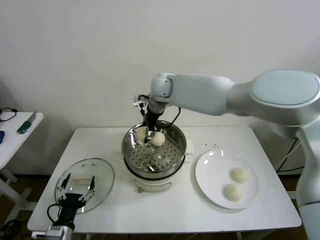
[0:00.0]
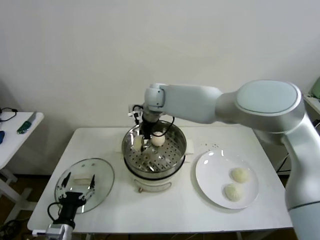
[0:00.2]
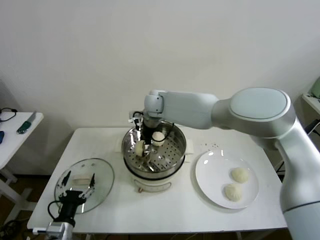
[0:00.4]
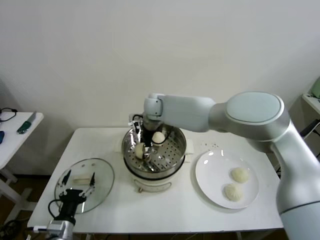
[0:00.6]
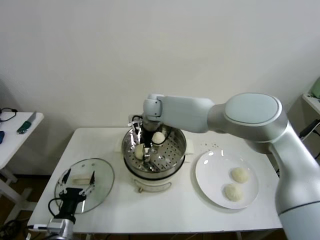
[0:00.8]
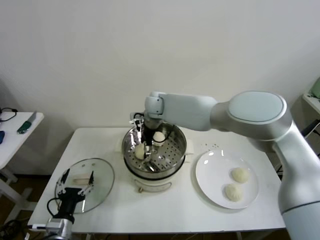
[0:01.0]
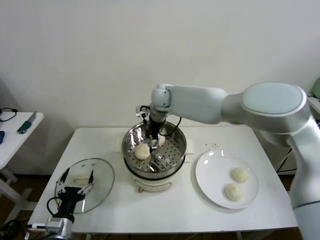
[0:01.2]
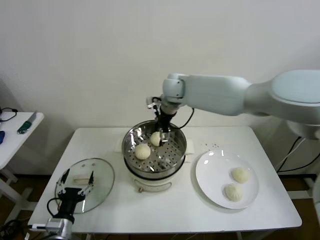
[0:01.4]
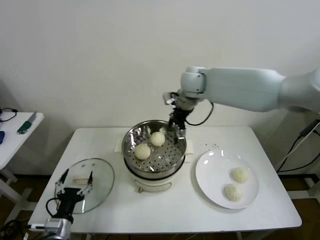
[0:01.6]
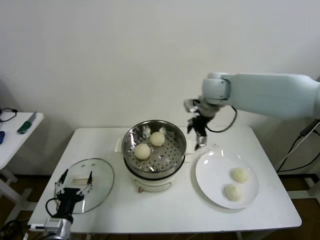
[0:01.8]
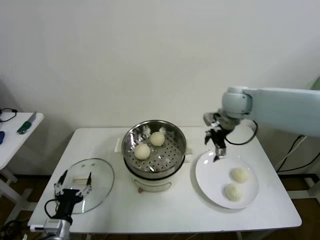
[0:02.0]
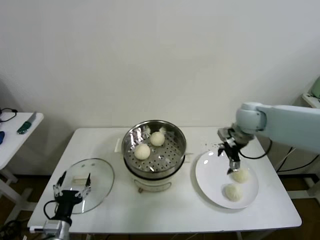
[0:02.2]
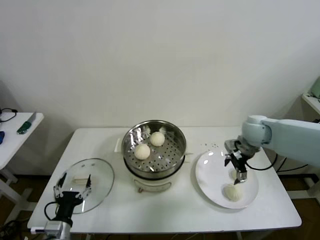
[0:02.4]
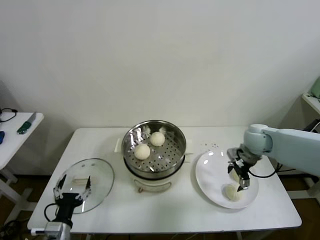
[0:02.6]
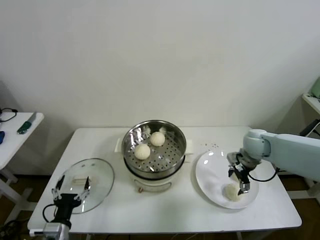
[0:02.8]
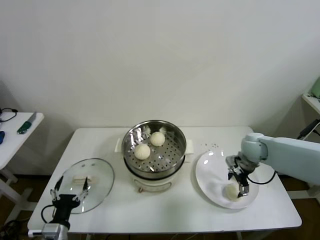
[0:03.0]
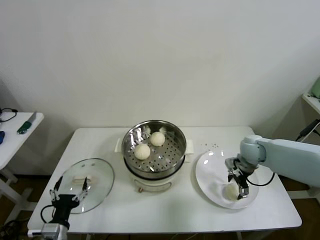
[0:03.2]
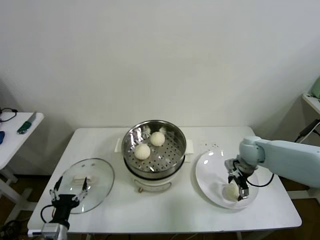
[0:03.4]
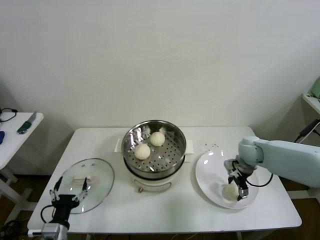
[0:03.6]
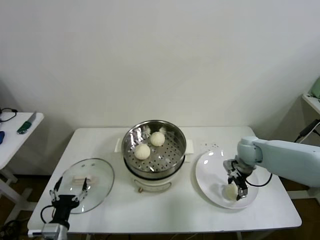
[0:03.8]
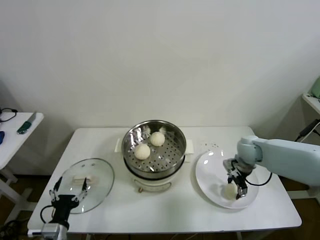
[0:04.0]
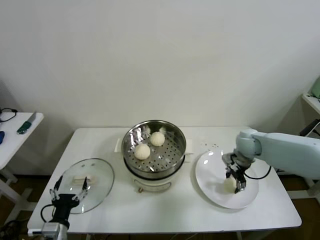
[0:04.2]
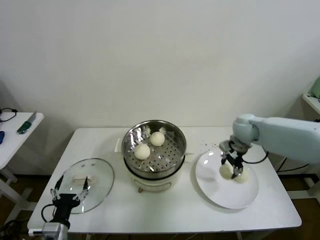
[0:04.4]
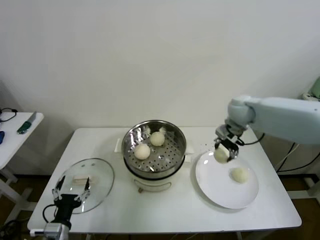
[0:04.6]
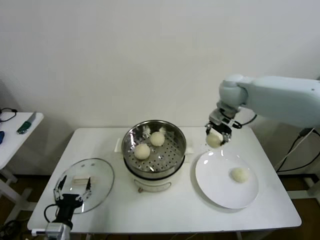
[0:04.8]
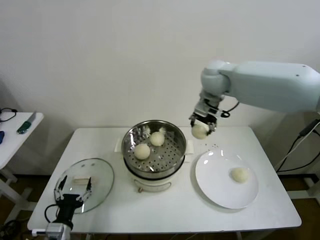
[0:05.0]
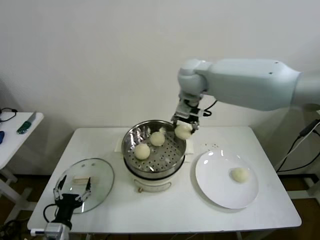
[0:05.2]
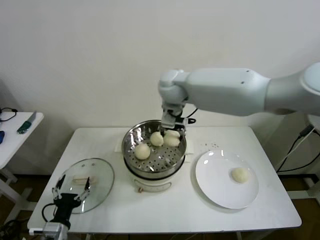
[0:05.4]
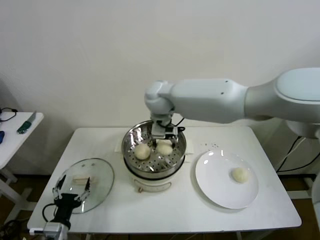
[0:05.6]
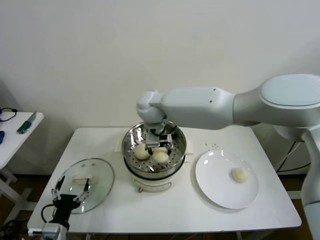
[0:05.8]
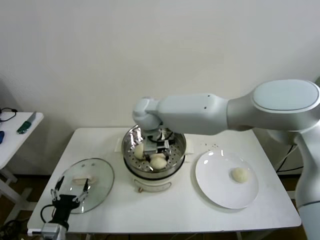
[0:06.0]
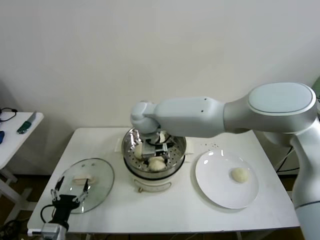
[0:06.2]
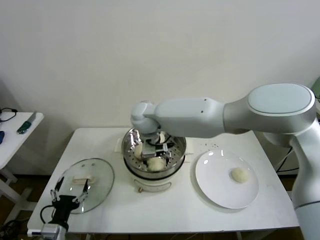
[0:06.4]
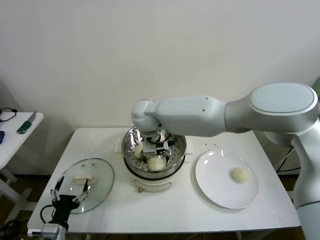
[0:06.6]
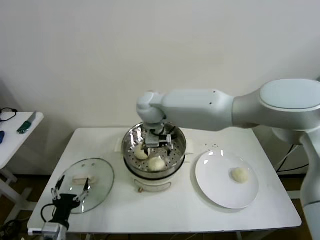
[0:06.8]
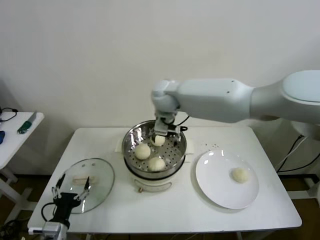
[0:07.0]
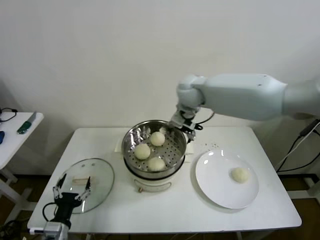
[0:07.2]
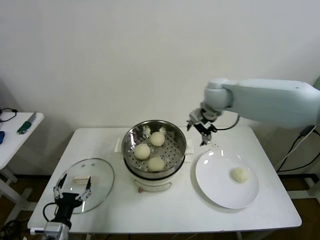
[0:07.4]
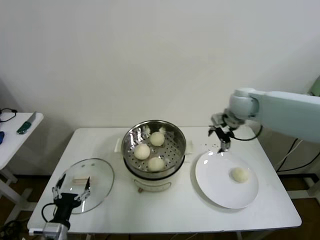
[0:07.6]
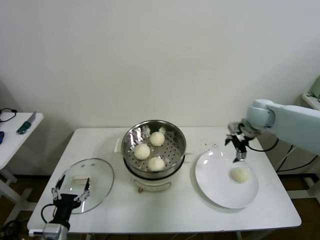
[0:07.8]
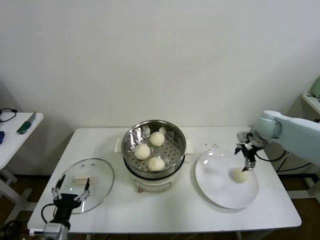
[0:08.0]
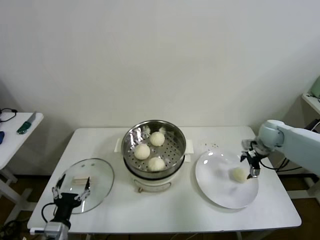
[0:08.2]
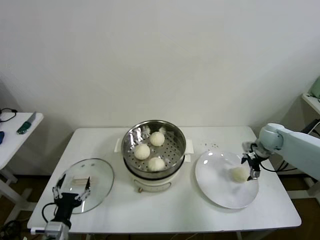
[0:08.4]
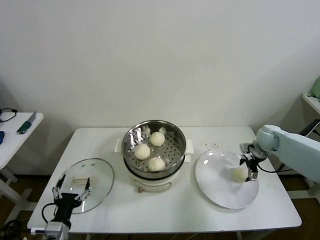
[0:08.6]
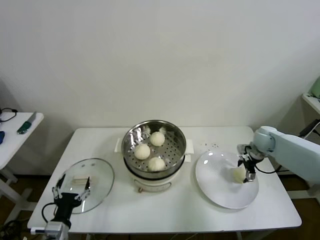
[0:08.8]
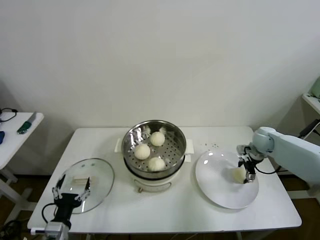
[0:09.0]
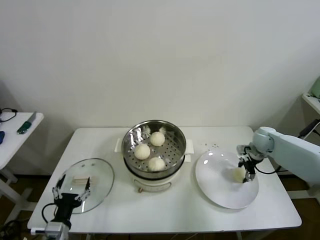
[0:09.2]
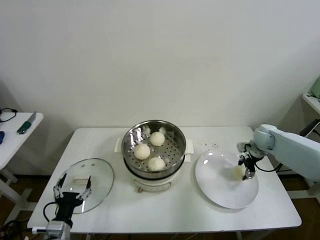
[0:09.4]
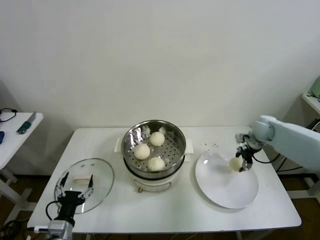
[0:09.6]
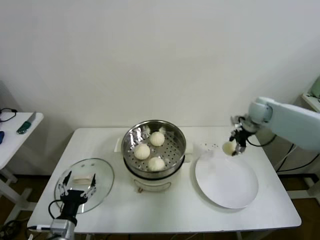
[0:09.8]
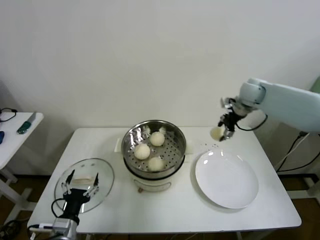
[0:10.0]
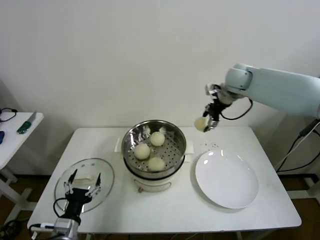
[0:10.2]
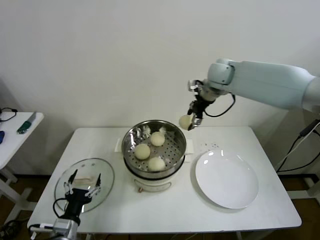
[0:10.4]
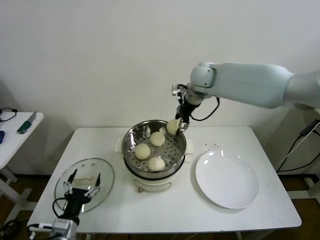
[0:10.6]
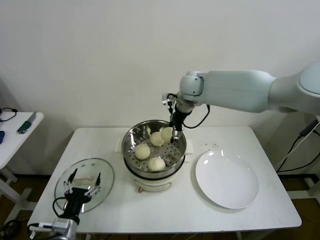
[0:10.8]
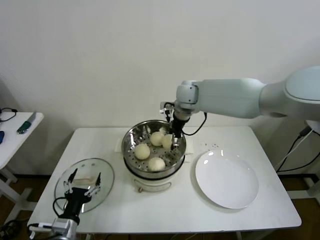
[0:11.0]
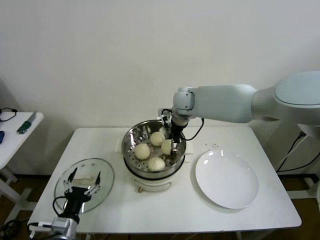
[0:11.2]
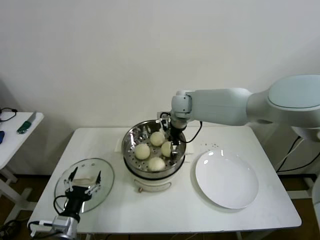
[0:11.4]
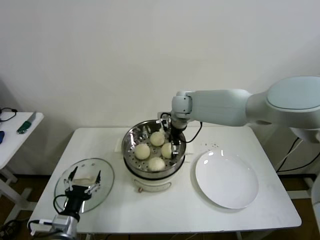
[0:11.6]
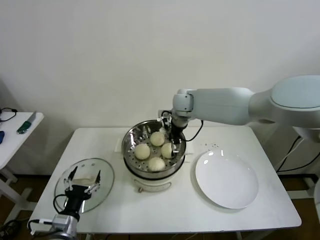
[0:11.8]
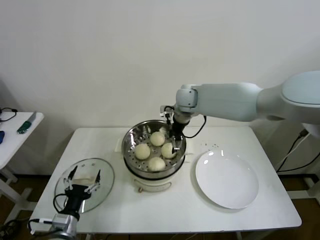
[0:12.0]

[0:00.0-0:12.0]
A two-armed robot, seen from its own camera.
Step, 0:01.2 to 0:03.8: Grasp the baozi in the plate with right gripper.
Step, 0:04.0 to 0:06.4: Place the baozi on the steamer with right gripper.
Step, 0:06.6 to 0:09.2: Grasp the baozi in the plate with right gripper.
Step, 0:09.4 to 0:11.4: Place the baozi on the steamer with right gripper.
0:00.0 to 0:01.6: The right gripper is displaced to the right by about 10 cm, and opens its fingers.
0:01.6 to 0:03.0: The right gripper shifts roughly 30 cm to the right, downward and backward.
0:03.0 to 0:04.4: The right gripper shifts approximately 5 cm upward, and closes up.
0:04.4 to 0:06.0: The right gripper shifts approximately 35 cm to the left.
0:06.0 to 0:07.6: The right gripper shifts about 30 cm to the right, and opens.
0:07.6 to 0:09.0: The right gripper shifts roughly 25 cm downward and to the right.
0:09.0 to 0:10.4: The right gripper is displaced upward and to the left by roughly 30 cm, and closes its fingers.
0:10.4 to 0:12.0: The right gripper shifts about 15 cm to the left and downward, and opens.

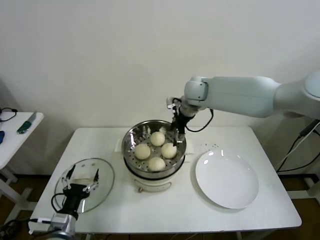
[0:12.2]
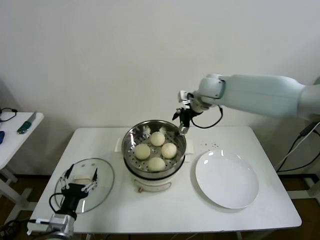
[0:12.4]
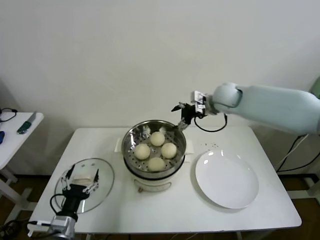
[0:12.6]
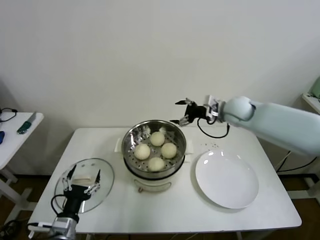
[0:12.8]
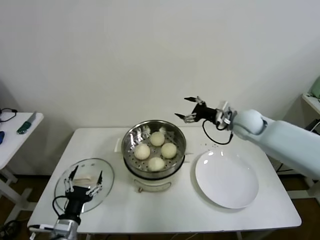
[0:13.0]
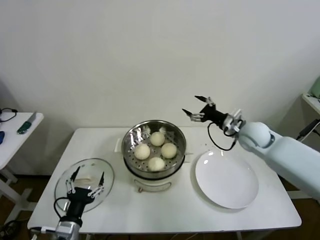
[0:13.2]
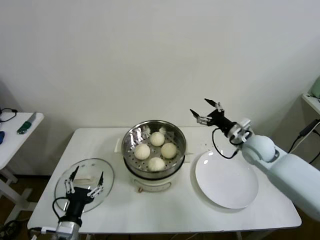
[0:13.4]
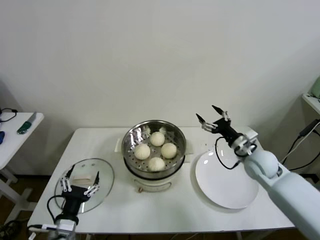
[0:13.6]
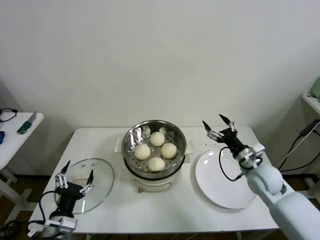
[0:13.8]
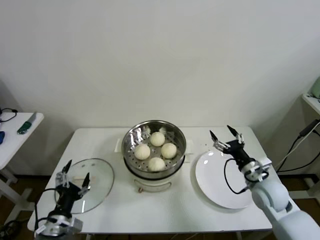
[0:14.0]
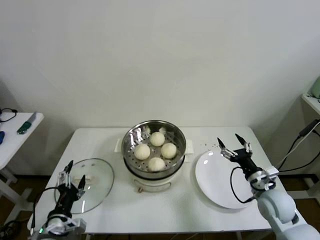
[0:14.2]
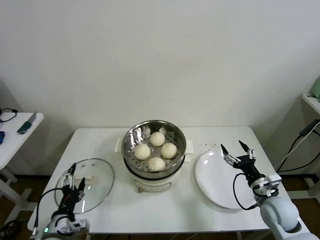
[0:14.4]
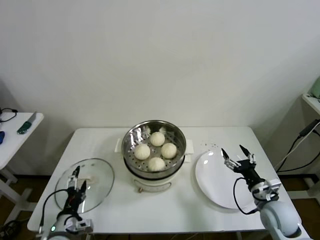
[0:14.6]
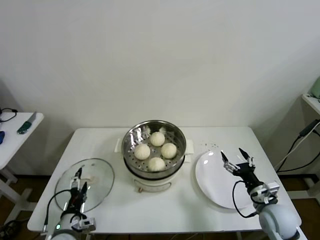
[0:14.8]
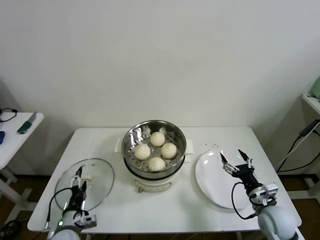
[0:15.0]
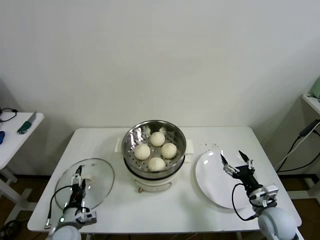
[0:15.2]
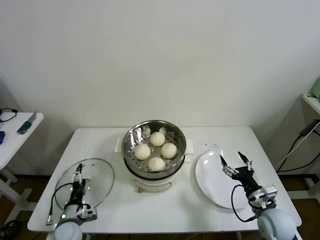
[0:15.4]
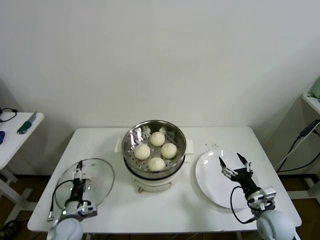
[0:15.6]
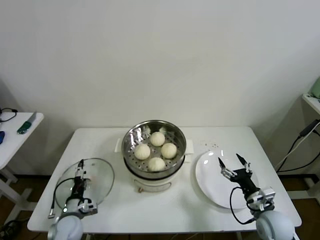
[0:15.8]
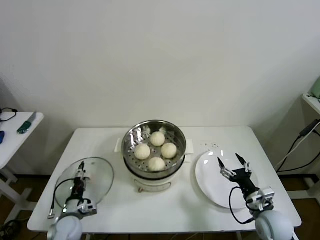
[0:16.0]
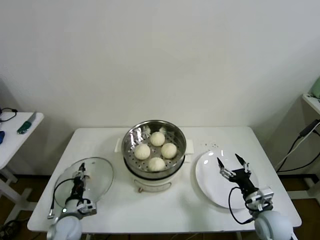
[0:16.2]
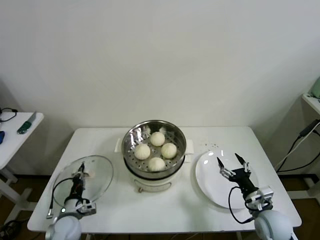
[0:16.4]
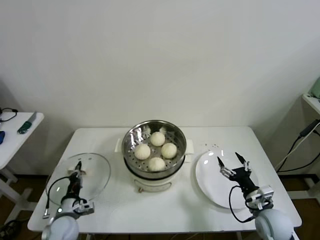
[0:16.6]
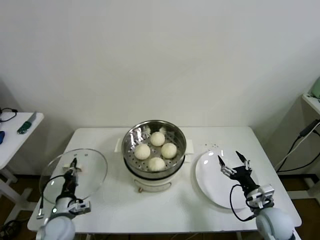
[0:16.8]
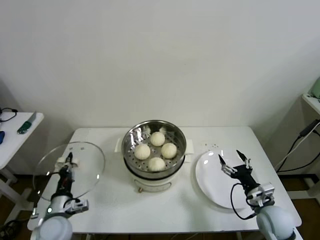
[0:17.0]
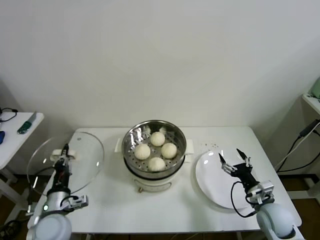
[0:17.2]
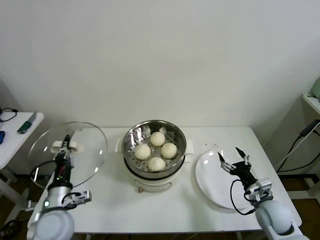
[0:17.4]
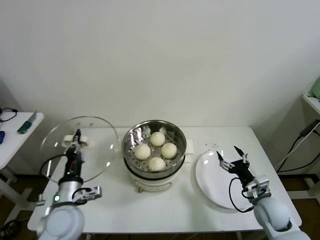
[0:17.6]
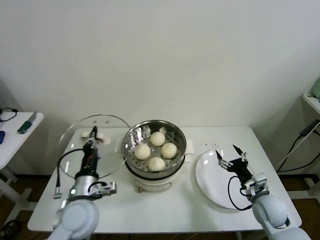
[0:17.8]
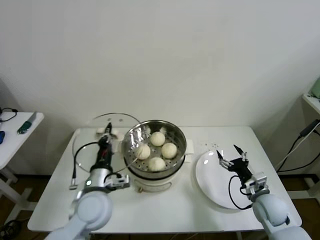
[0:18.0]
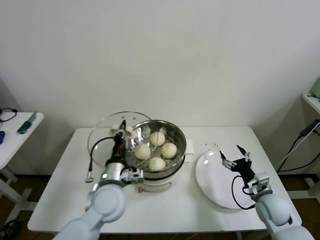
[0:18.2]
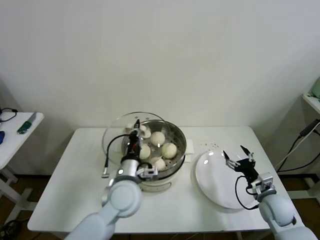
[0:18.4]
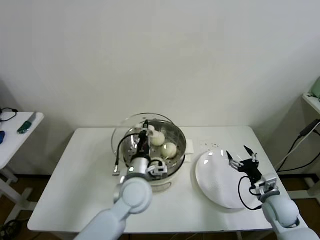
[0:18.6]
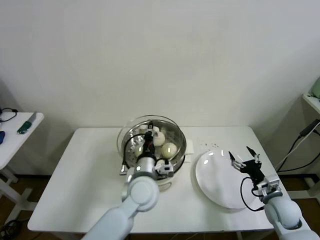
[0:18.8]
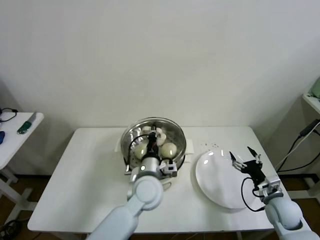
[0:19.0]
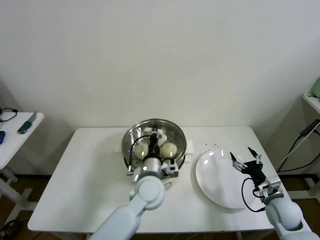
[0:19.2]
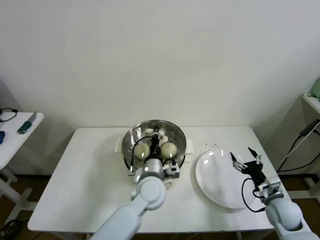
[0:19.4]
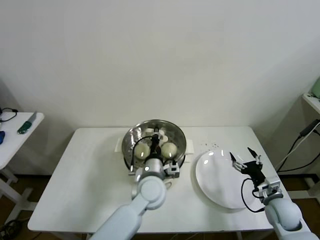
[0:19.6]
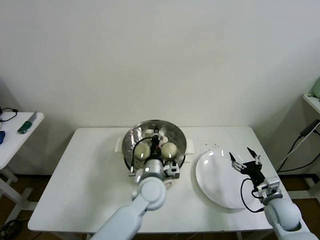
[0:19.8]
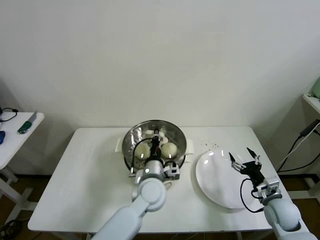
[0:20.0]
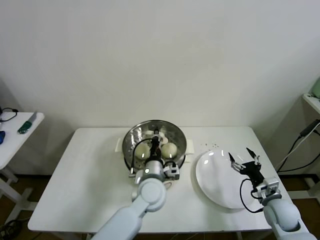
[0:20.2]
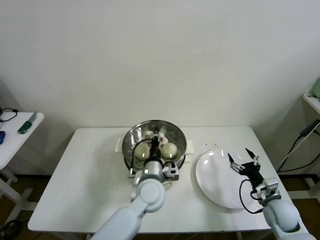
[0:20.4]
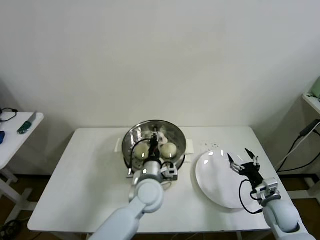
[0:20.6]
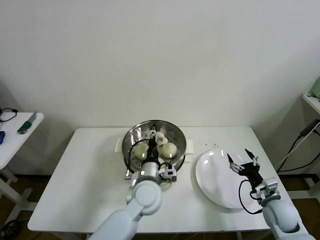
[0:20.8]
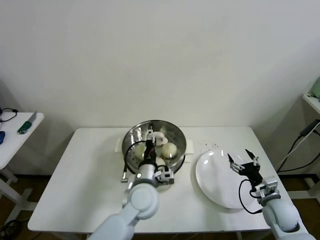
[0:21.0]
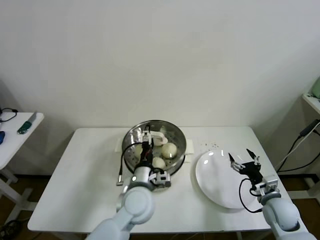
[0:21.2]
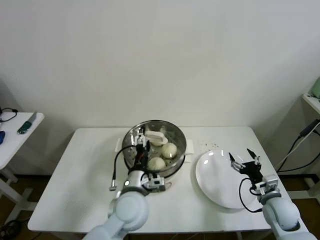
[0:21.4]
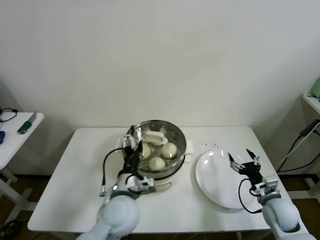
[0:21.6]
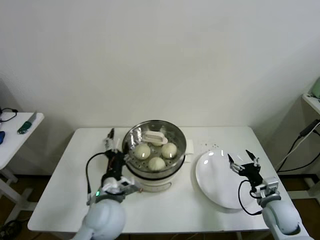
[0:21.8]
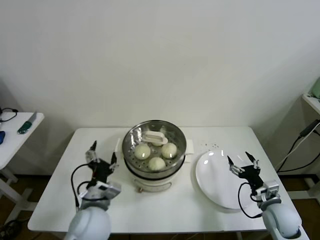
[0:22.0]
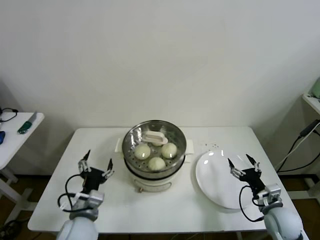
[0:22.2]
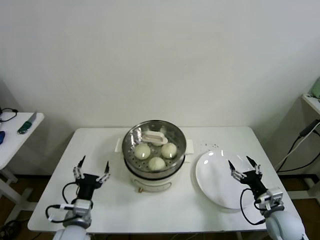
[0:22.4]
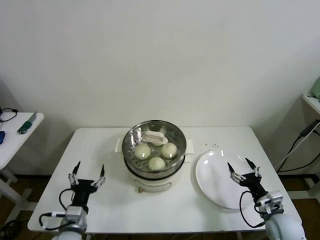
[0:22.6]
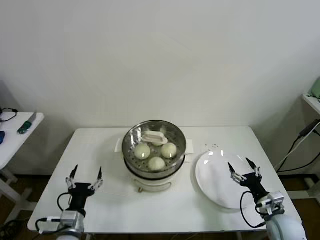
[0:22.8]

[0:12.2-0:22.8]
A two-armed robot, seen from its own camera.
Step, 0:12.2 to 0:16.4: Grasp the pot lid with left gripper.
Step, 0:16.6 to 0:20.6: Place the pot lid on the steamer with left gripper.
0:12.2 to 0:13.8: The right gripper travels backward, to the right and downward by about 35 cm.
0:13.8 to 0:15.2: The right gripper heads backward and downward, covering approximately 15 cm, while the left gripper travels downward and forward by about 10 cm.
0:15.2 to 0:16.8: The left gripper closes up.
0:16.8 to 0:18.2: The left gripper shifts some 25 cm to the right and upward.
0:18.2 to 0:19.8: The left gripper shifts roughly 10 cm to the right.
0:19.8 to 0:21.2: The left gripper opens up.
0:21.2 to 0:22.8: The left gripper travels to the left and backward by some 25 cm.
